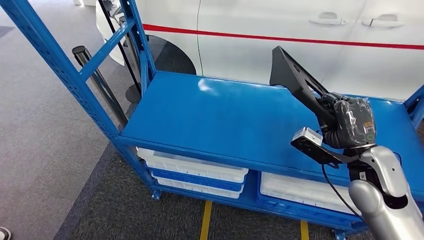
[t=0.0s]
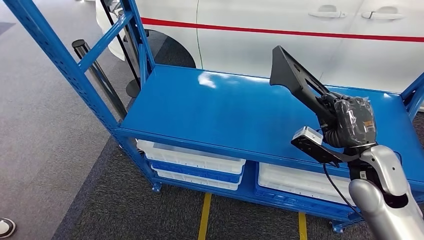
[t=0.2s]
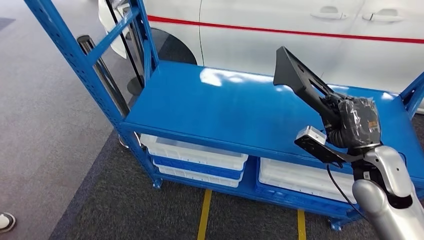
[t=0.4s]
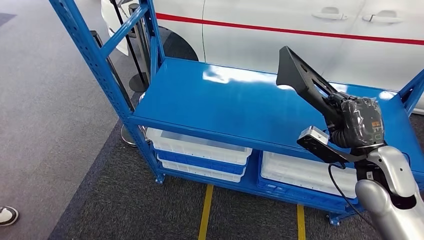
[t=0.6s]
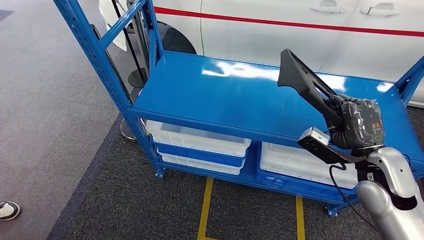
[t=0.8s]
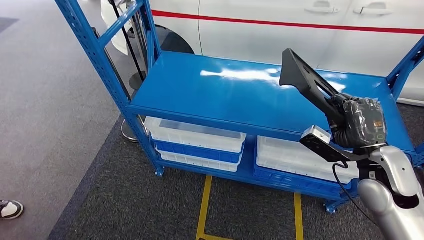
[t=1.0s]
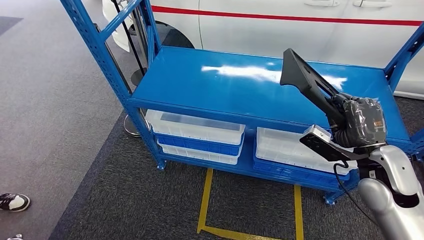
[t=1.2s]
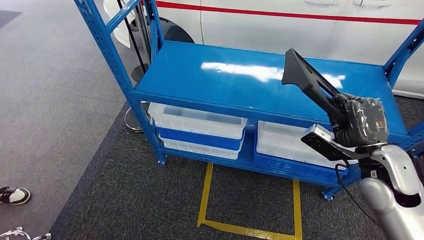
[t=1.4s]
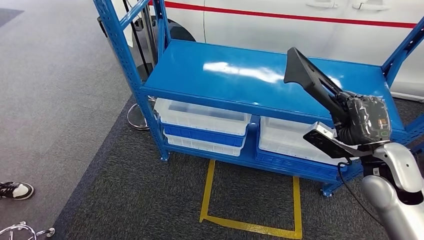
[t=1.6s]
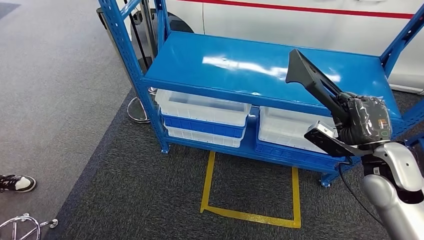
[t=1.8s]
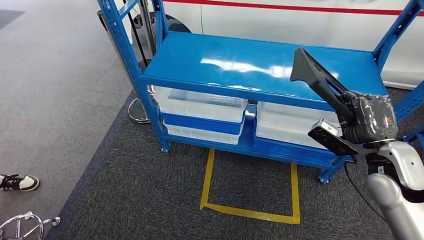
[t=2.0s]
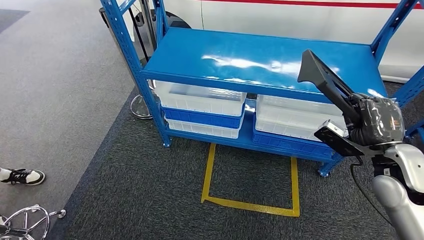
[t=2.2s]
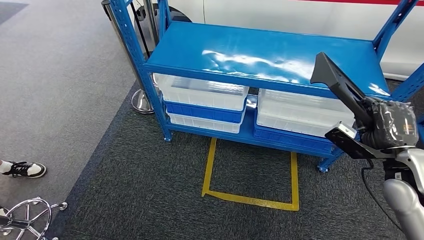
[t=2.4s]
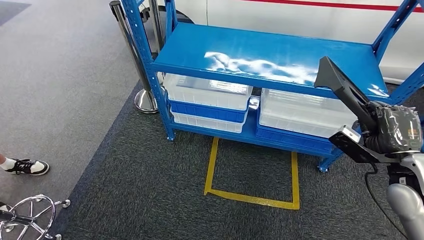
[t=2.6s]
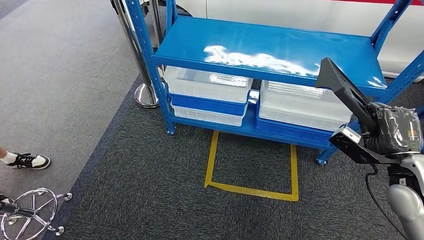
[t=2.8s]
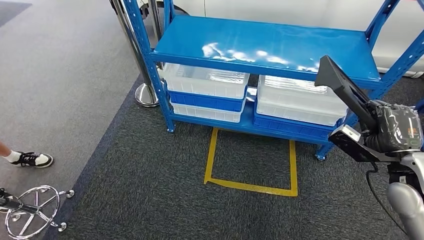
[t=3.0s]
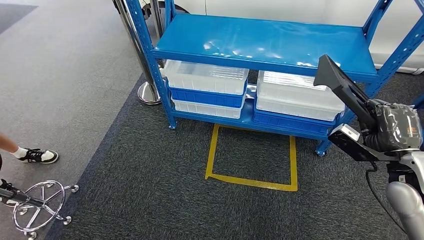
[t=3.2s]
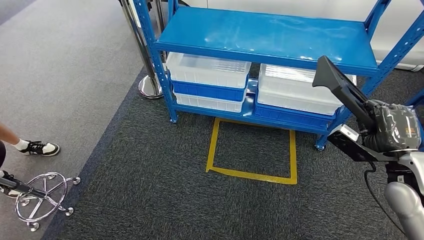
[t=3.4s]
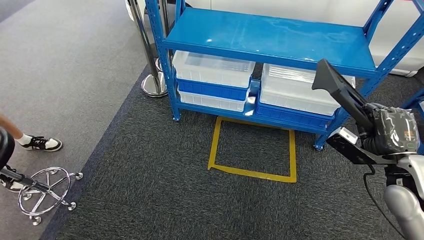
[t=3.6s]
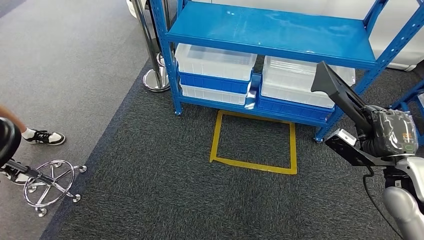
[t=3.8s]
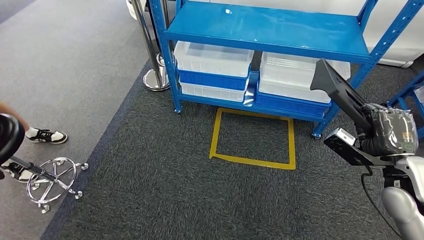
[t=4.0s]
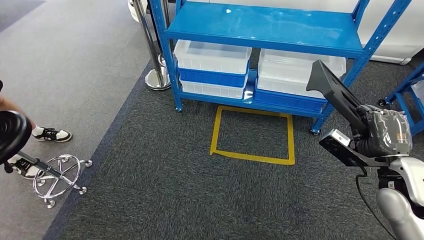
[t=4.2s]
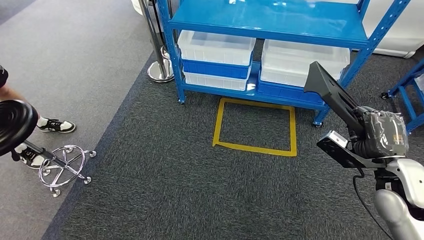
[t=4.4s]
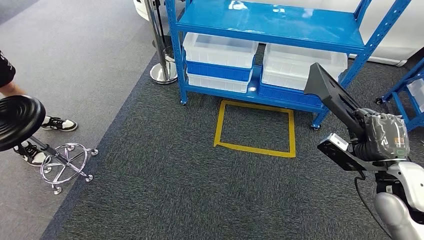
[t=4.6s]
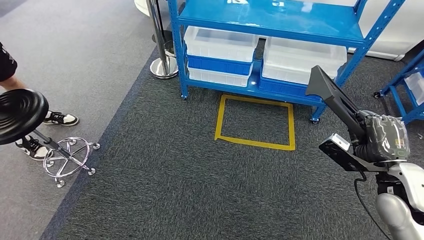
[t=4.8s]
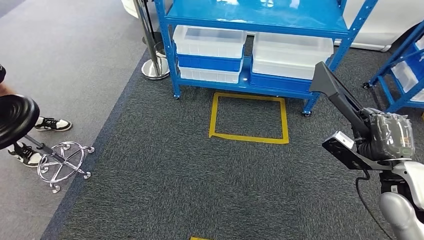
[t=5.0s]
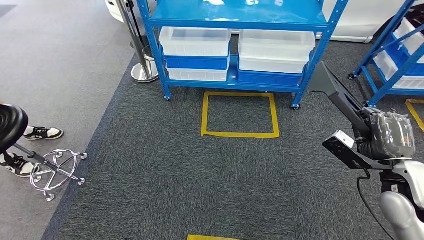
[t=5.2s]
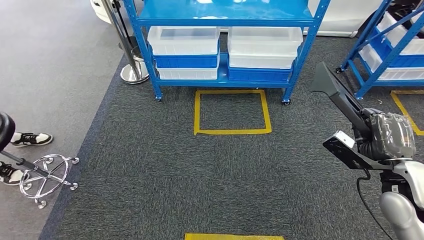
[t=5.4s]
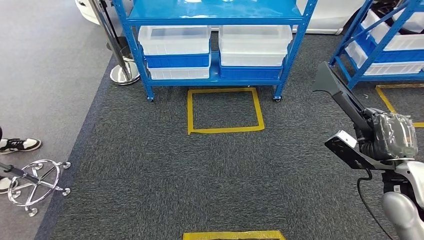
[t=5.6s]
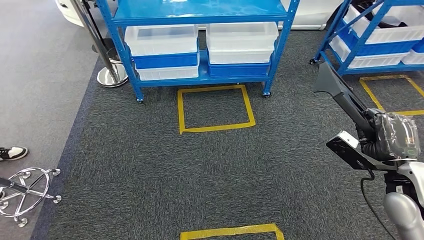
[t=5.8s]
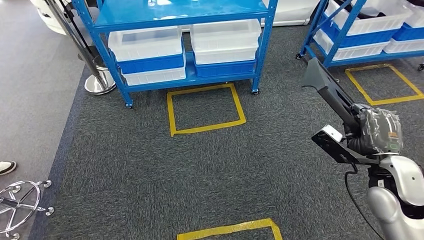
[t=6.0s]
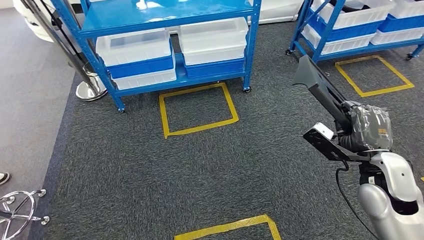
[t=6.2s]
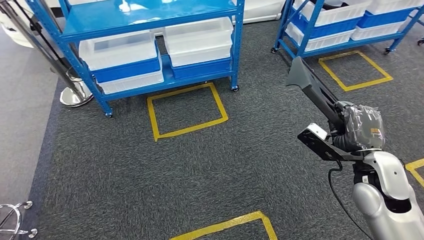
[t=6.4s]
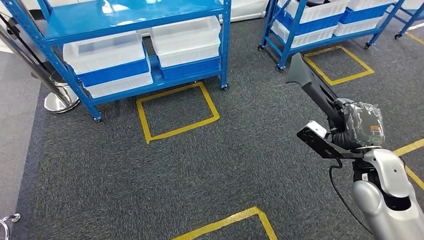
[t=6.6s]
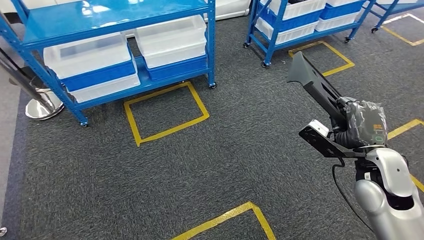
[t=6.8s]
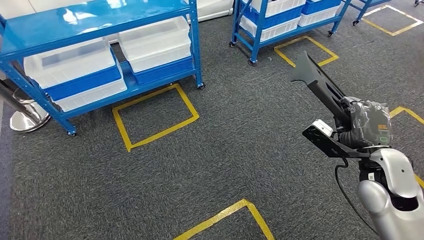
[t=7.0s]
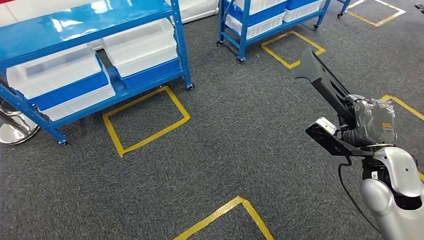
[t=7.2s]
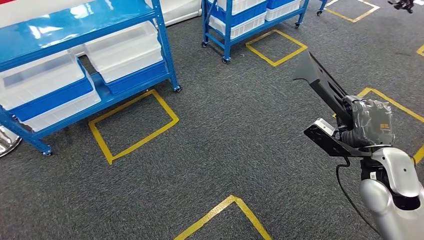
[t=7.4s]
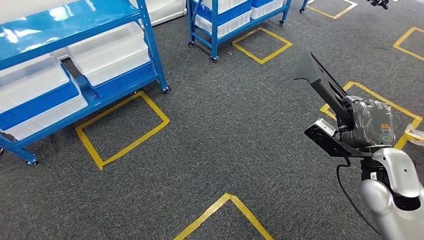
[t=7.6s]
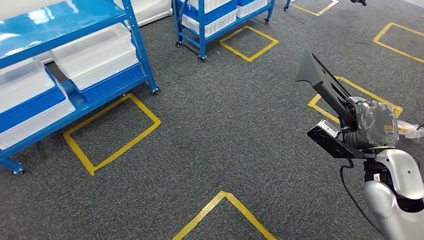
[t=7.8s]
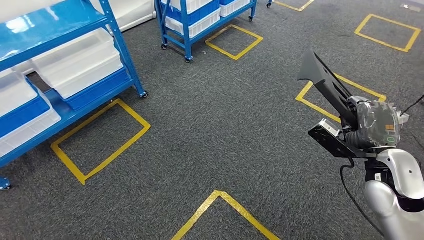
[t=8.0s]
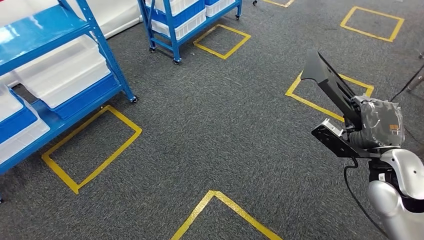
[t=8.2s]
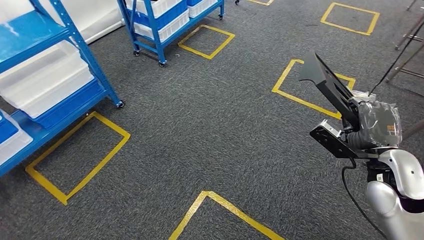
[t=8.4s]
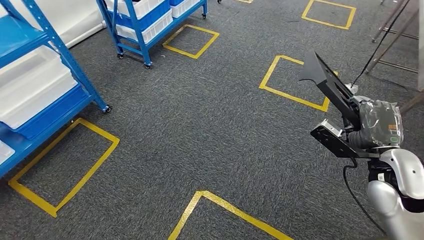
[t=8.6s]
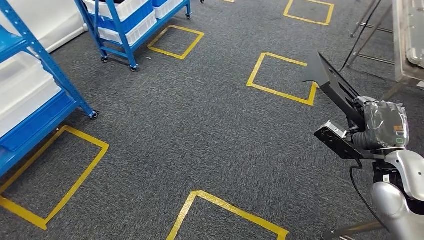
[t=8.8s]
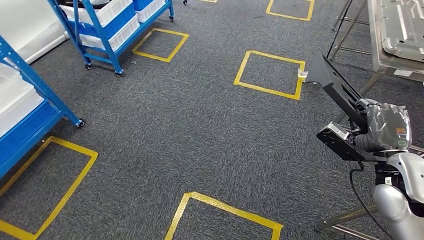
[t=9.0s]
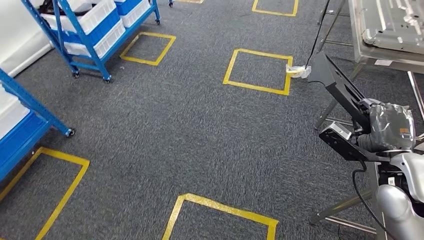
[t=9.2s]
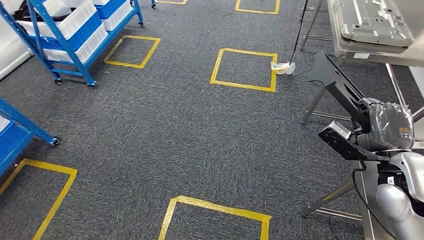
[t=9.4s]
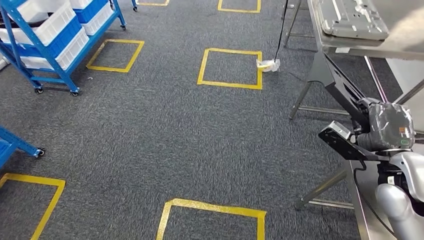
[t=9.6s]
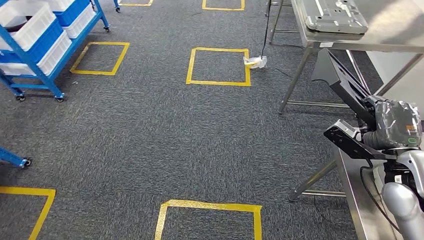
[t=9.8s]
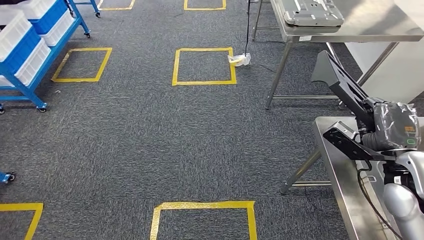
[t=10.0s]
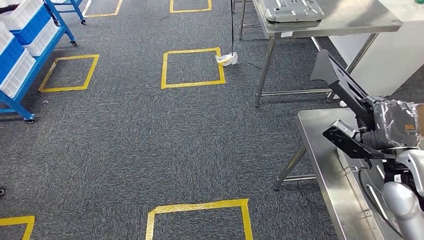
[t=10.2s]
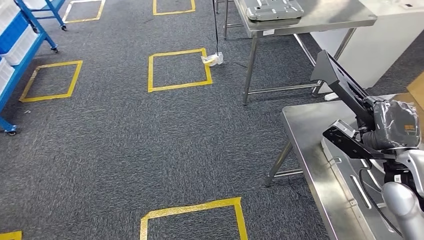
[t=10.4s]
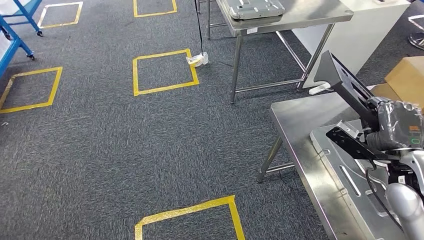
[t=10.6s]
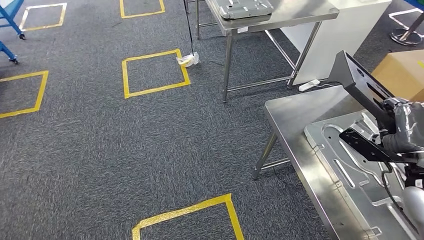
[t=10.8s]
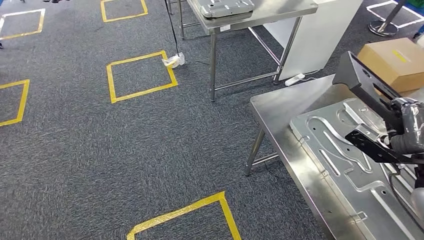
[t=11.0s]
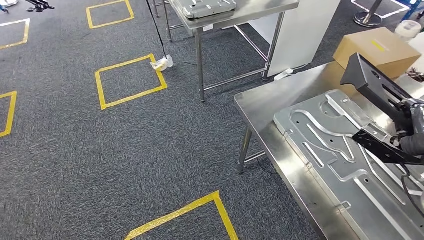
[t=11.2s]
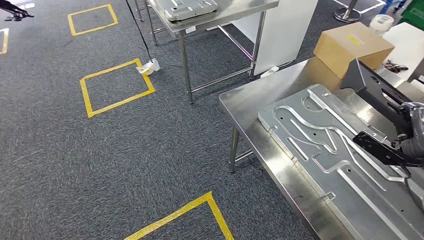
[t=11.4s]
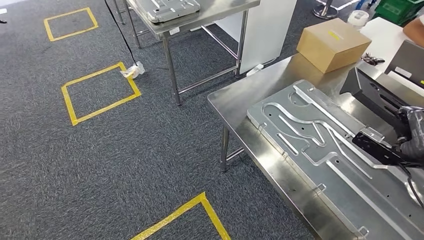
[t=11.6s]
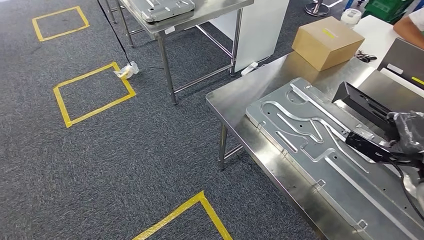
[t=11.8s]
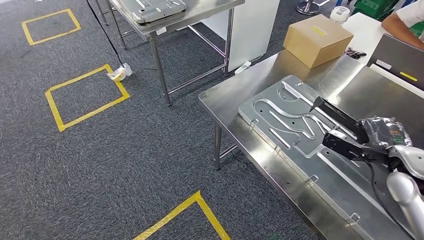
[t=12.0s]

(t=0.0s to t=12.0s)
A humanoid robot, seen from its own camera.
Step, t=1.6s - t=10.2s: Move the large material to the workbench.

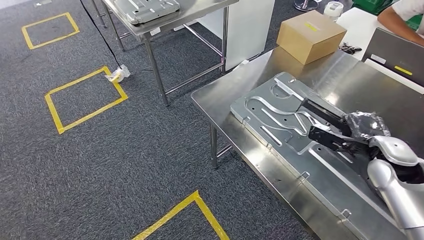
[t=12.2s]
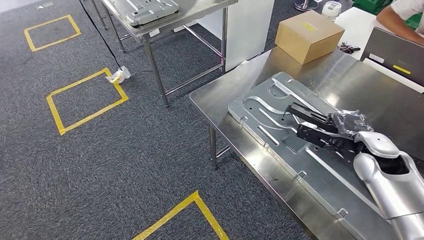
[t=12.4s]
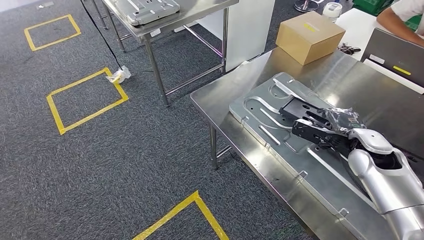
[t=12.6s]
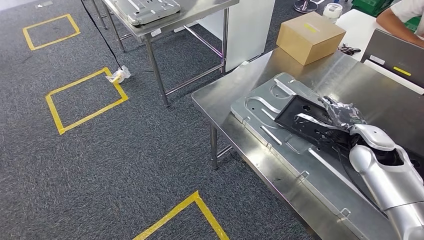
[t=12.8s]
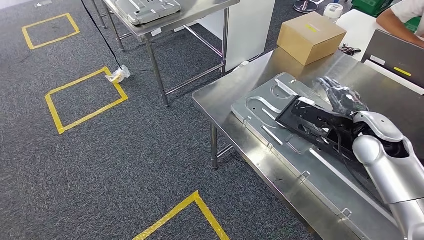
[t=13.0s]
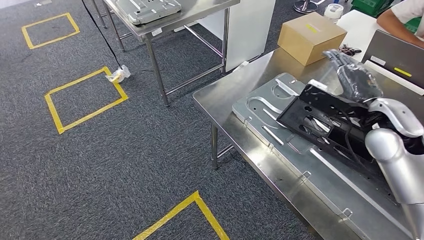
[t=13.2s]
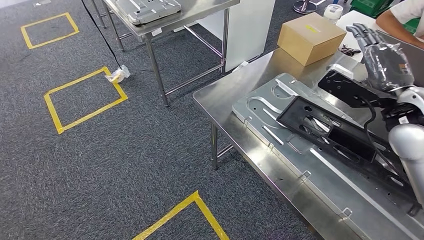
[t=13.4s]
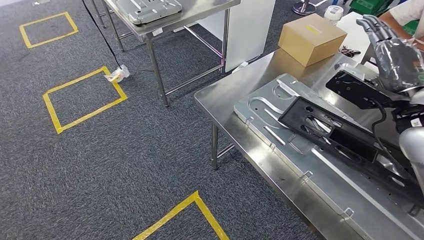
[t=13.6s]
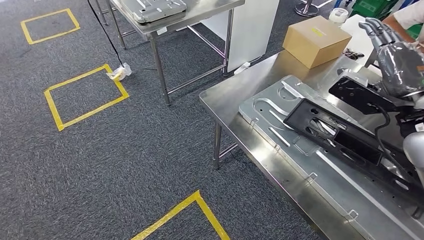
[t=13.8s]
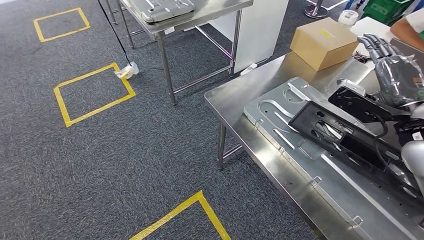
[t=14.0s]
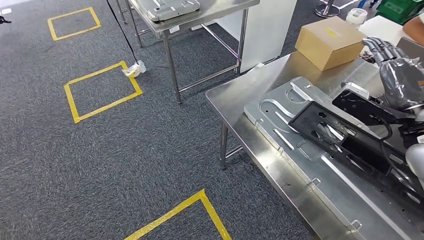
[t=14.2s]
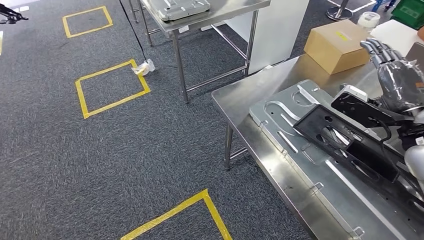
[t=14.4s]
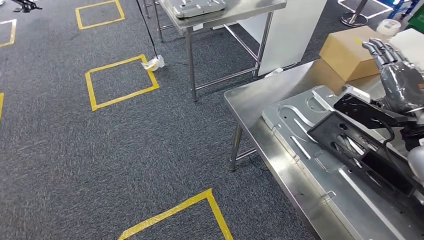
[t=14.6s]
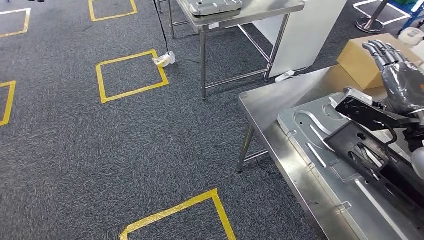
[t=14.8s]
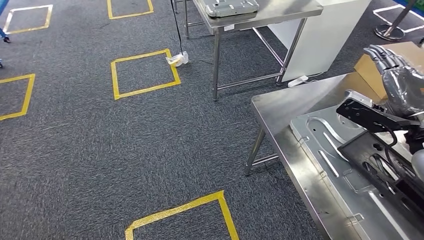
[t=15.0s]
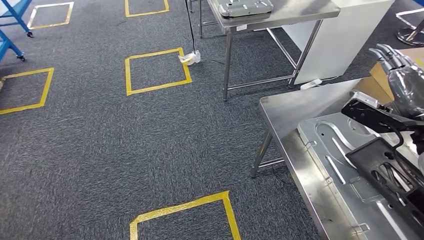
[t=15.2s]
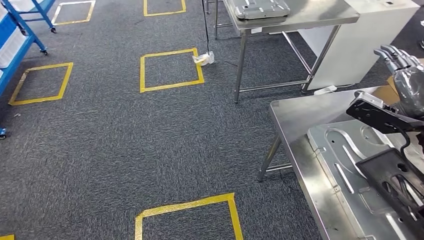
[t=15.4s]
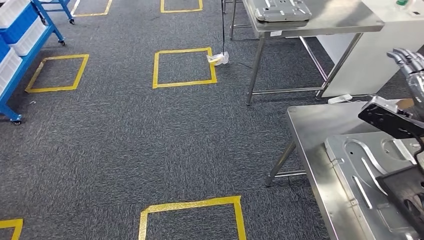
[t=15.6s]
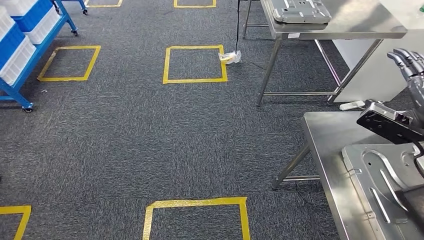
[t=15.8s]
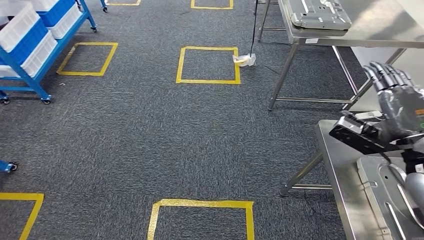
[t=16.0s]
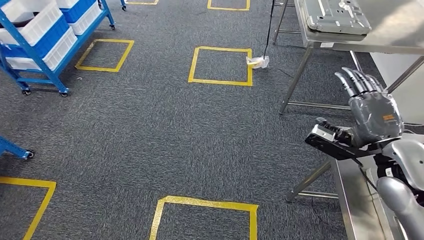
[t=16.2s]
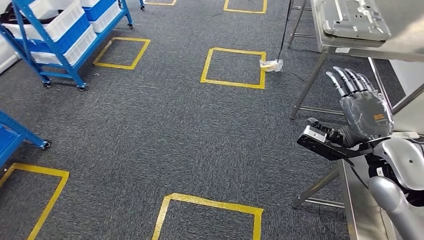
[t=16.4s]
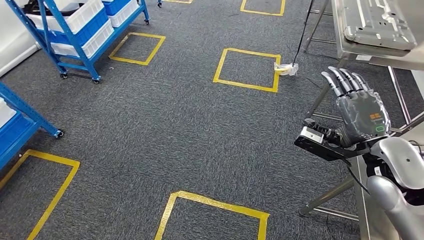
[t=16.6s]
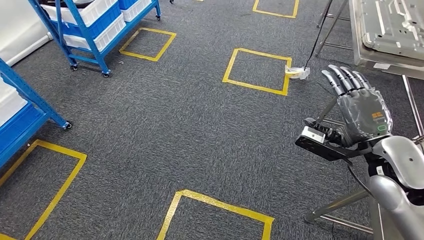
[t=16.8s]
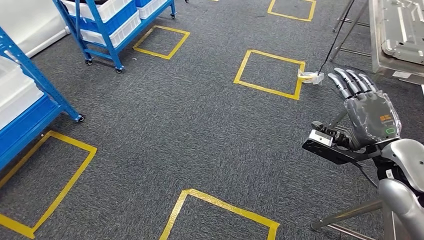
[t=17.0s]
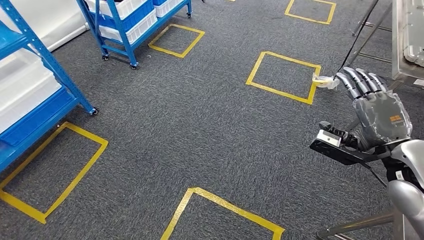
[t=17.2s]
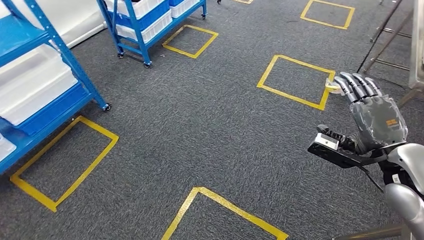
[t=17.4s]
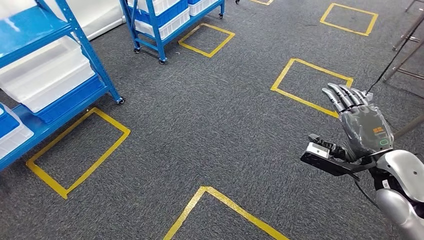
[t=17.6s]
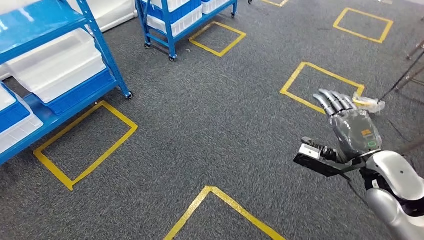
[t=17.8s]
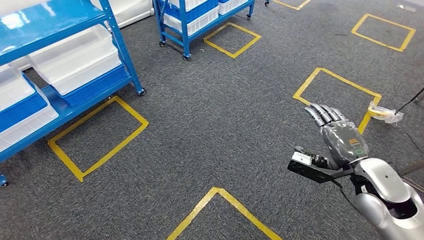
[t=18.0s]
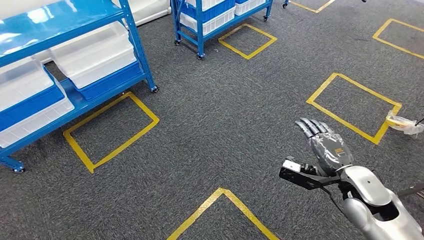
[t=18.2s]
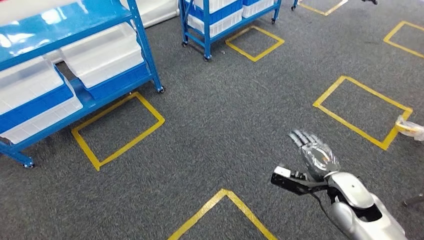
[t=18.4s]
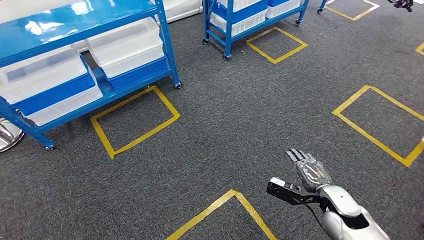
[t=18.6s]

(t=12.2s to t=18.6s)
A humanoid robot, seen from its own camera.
Step, t=12.2s - t=16.6s: Insert the large material into the corresponding slot on the workbench.
